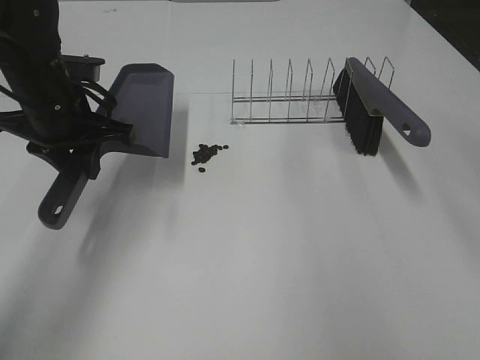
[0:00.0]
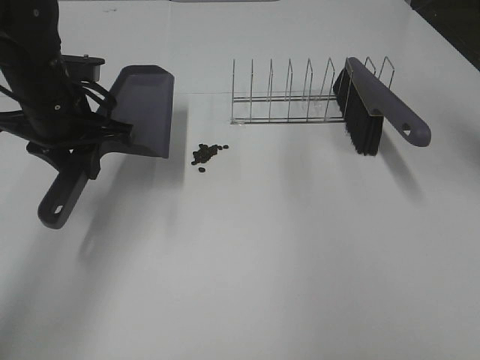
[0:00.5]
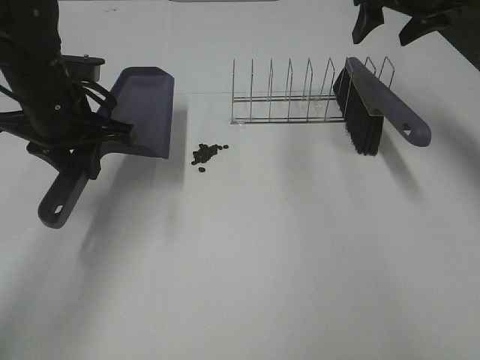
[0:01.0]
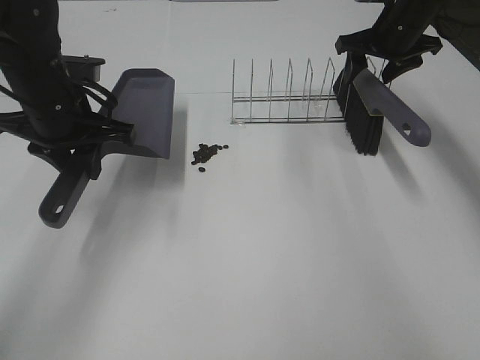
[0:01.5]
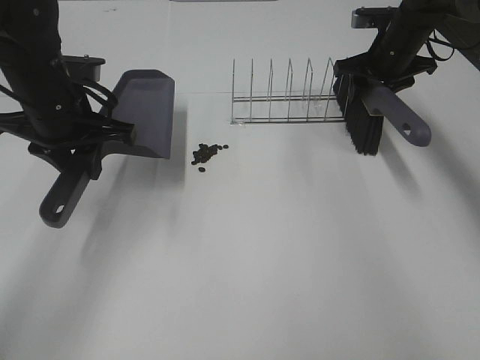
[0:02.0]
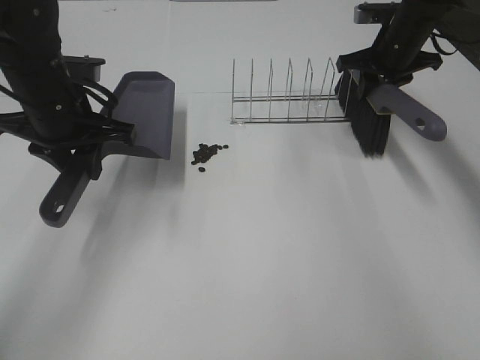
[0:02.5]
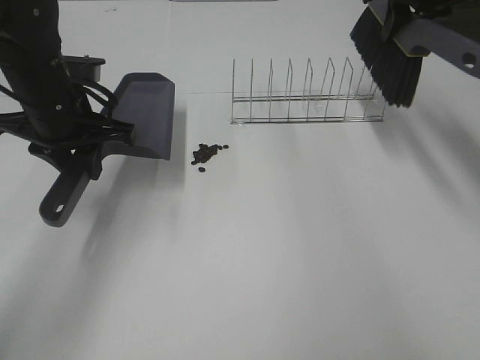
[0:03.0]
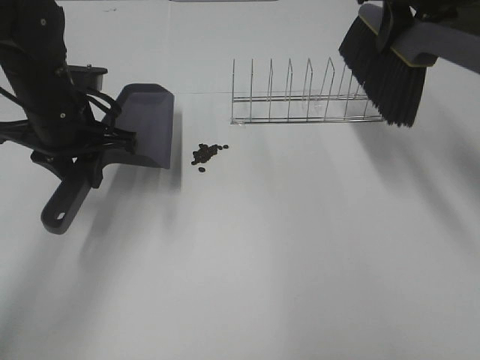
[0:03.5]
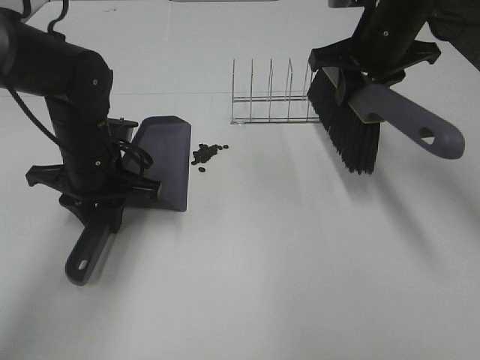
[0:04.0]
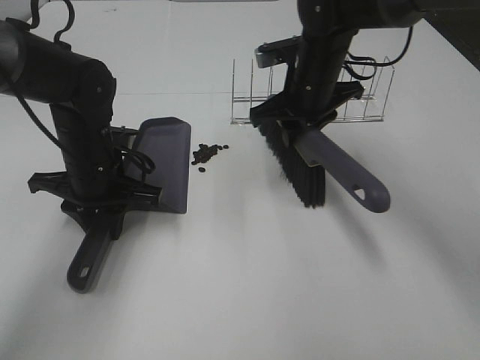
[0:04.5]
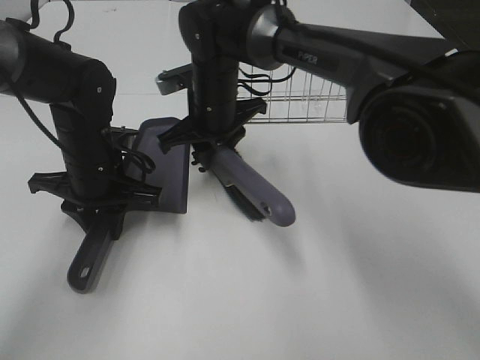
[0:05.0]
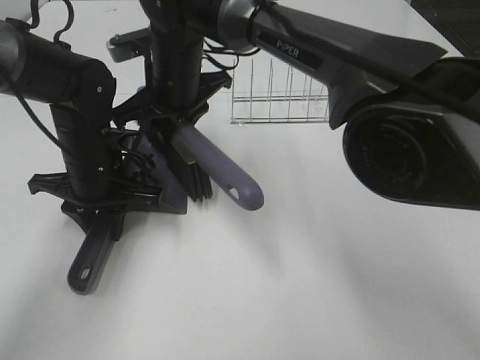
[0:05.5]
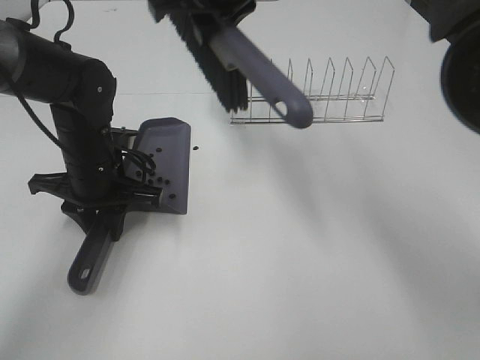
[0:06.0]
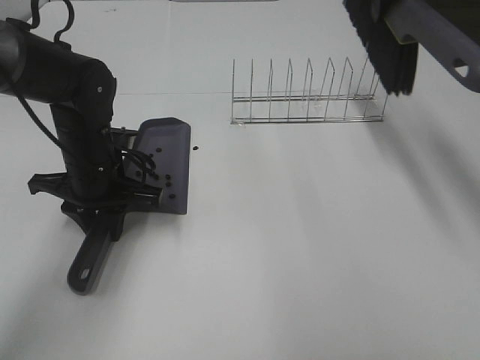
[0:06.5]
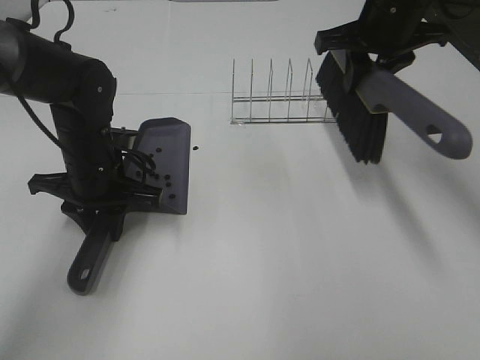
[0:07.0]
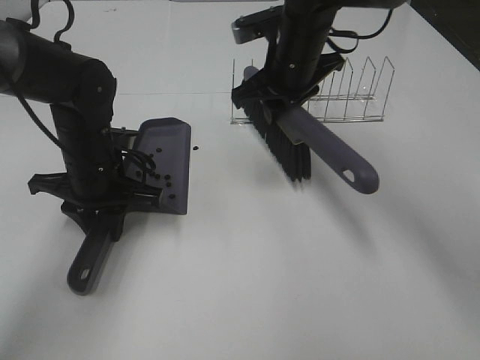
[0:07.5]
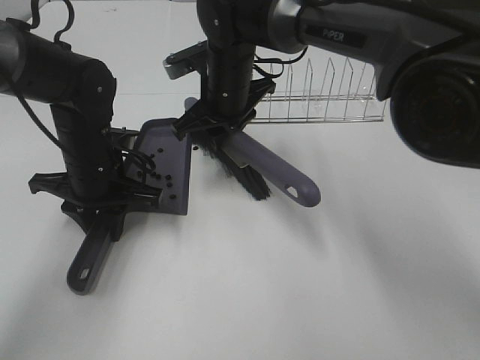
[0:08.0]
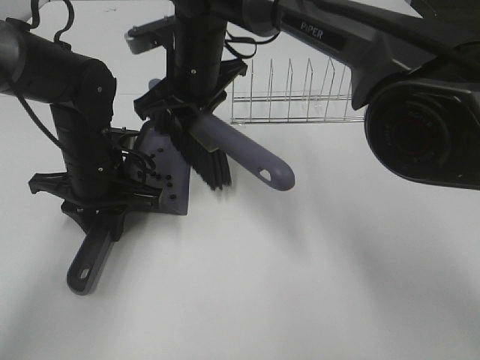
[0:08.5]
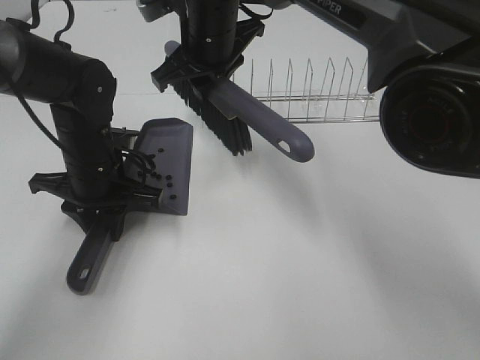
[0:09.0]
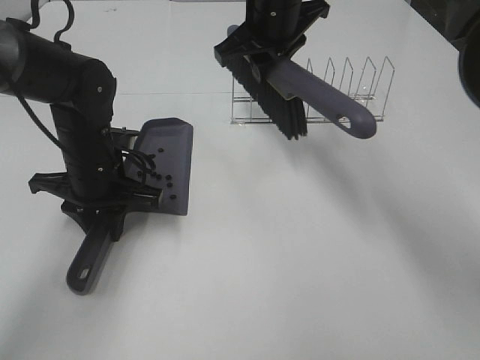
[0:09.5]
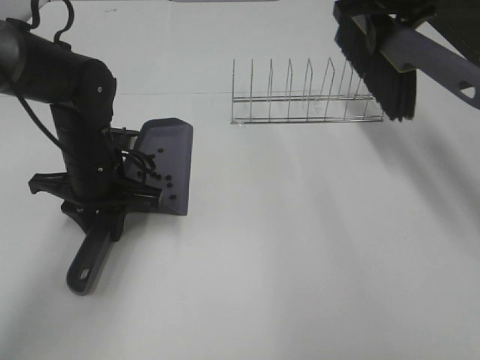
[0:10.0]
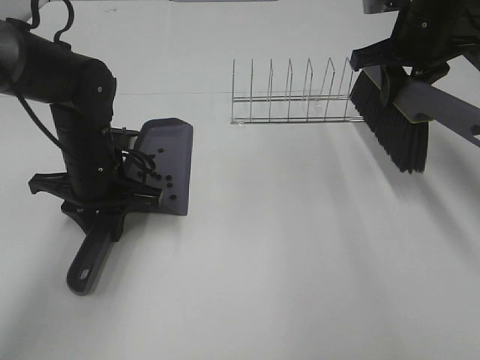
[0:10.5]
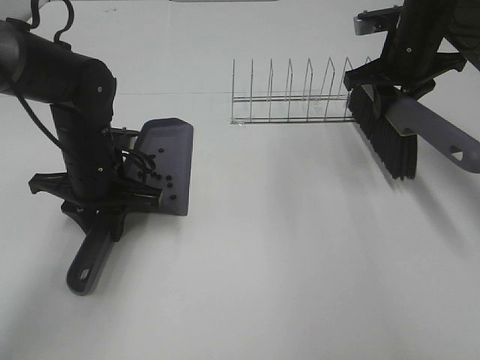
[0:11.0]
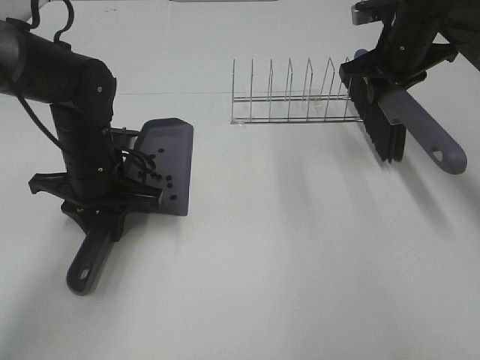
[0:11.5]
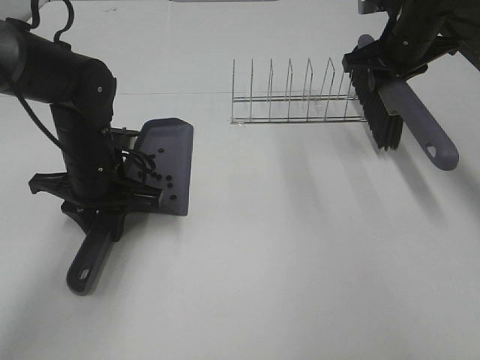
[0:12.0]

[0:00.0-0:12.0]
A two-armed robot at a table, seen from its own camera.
Task of the whole recording: Sweep Coffee Bean.
Step, 0:00.0 to 0:02.0: Right hand:grab the broom.
Step, 0:02.5 to 0:08.5: Right hand:sweep the coffee beans into the dustpan.
0:00.0 to 0:02.0: The right gripper shifts some 35 cm forward and downward, and closes.
0:02.0 to 0:04.0: The left gripper is displaced downward by some 5 cm, while the right gripper travels backward, to the left and upward by approximately 15 cm.
0:04.0 to 0:06.0: The right gripper travels to the left and upward by roughly 20 cm.
0:06.0 to 0:08.0: The right gripper is displaced downward by roughly 15 cm, and moves some 20 cm to the right and comes back.
0:08.0 to 0:10.0: The right gripper is displaced to the right and upward by approximately 25 cm.
0:10.0 to 0:12.0: The right gripper goes roughly 10 cm downward.

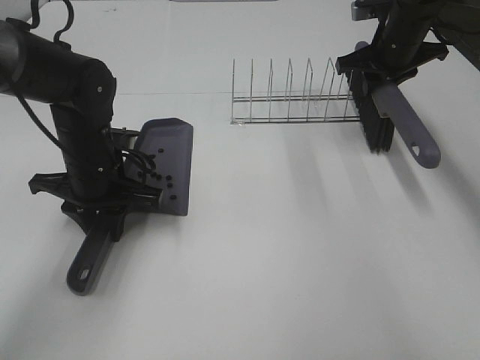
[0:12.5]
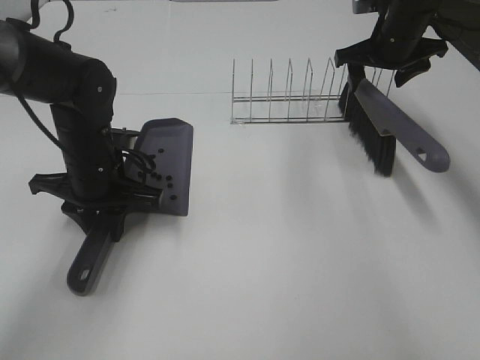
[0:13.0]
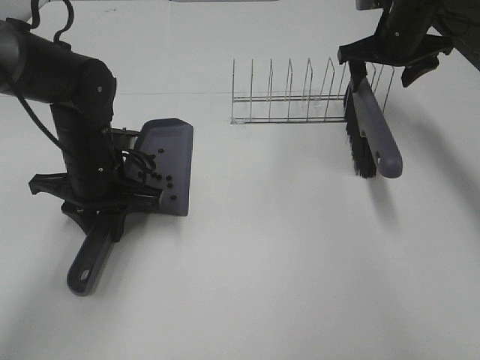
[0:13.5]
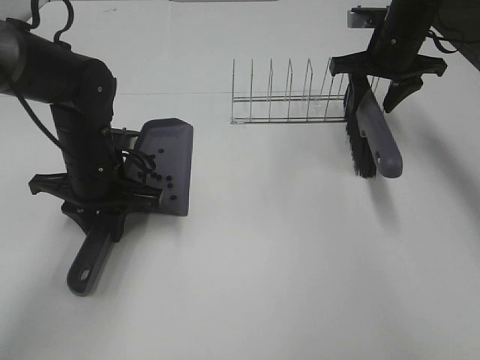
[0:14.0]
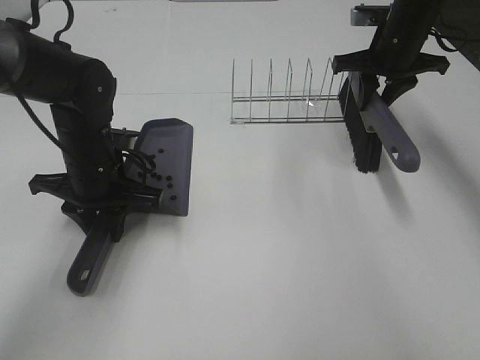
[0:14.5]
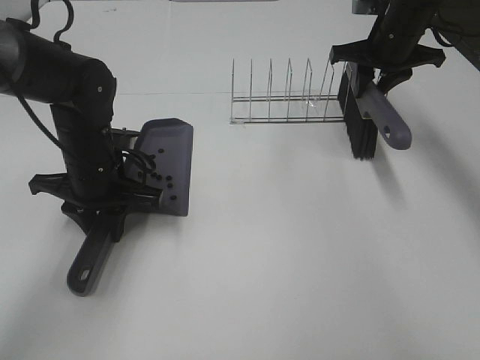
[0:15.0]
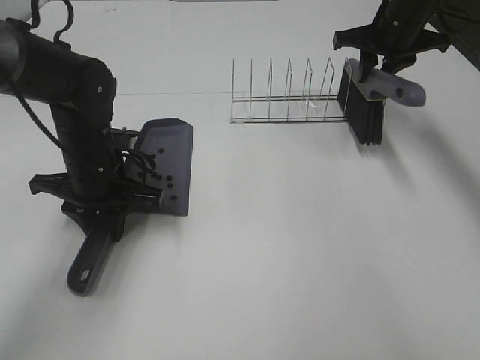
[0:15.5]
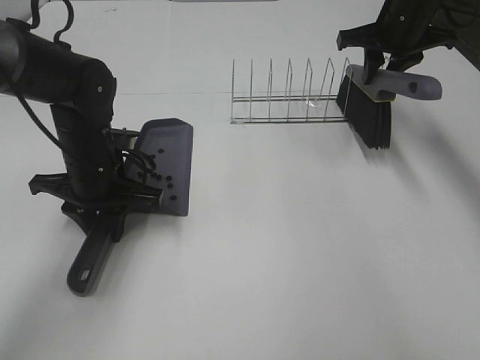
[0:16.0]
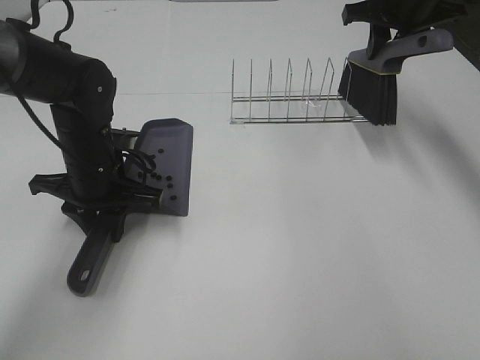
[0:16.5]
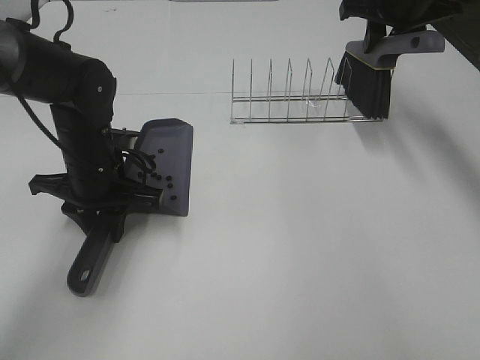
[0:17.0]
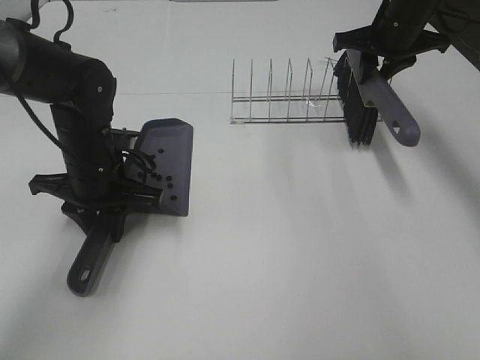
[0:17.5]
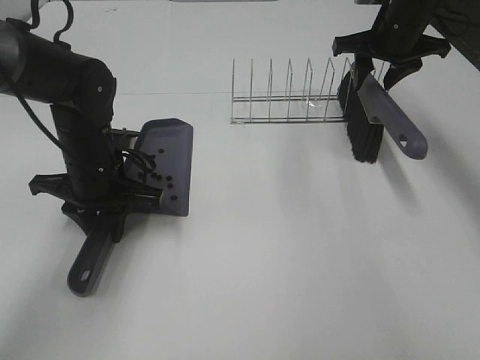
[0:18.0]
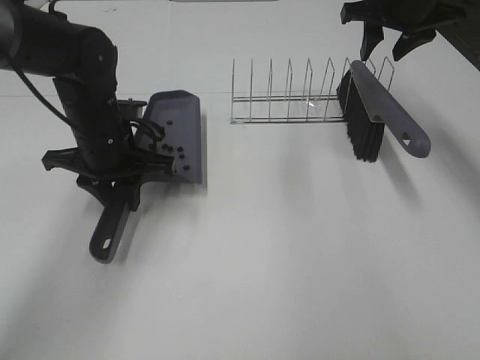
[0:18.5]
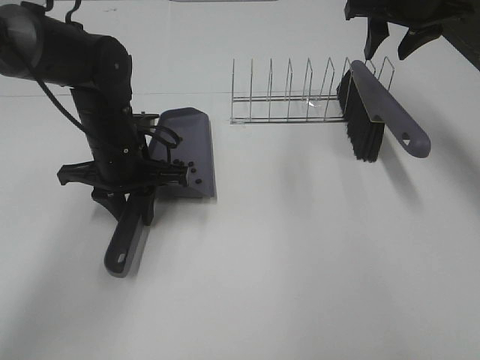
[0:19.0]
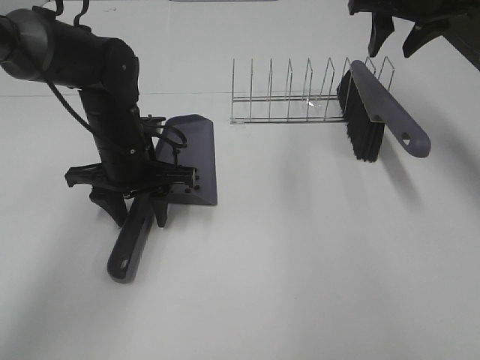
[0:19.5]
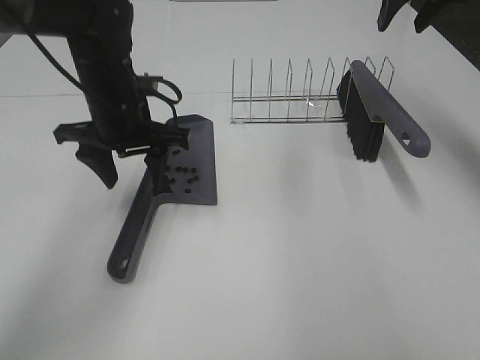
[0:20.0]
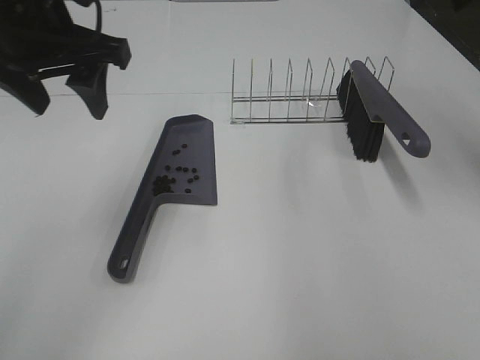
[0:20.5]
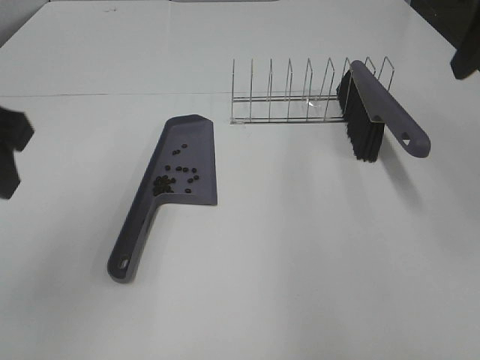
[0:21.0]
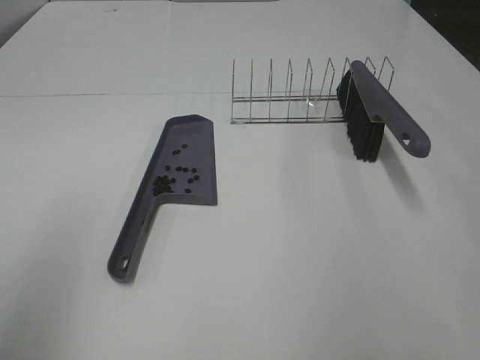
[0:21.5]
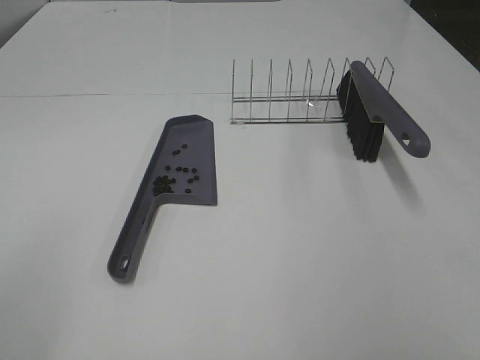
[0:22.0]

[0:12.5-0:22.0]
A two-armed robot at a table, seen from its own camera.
Task of the whole recording: Sweep Coffee Bean.
Step, 0:12.5 to 0:18.0: Right hand:place the broom on the rack.
Step, 0:18.5 to 0:19.5: Left hand:place the dustpan on the table.
0:12.5 to 0:14.5: The right gripper opens, then closes again.
0:14.5 to 0:16.5: The right gripper moves upward, some 5 cm.
0:16.5 to 0:18.0: The grippers stay close to where they were, moving slightly.
0:18.0 to 0:20.0: Both grippers move upward, approximately 10 cm. The left gripper opens up.
0:20.0 to 0:22.0: The left gripper is displaced backward and to the left by about 40 cm. The right gripper goes about 40 cm backward.

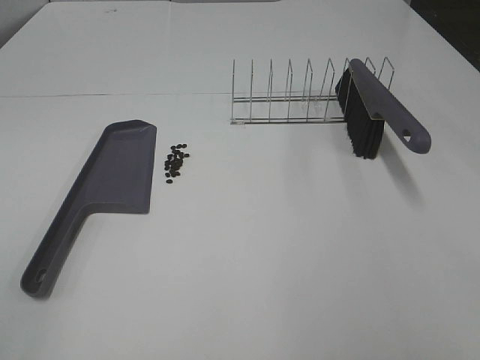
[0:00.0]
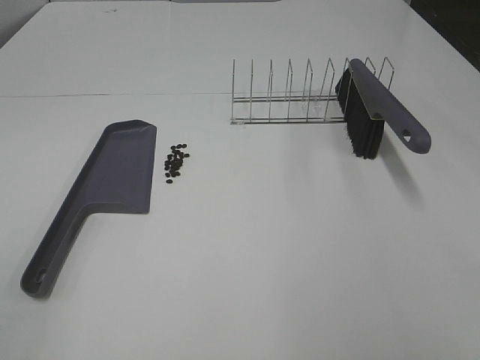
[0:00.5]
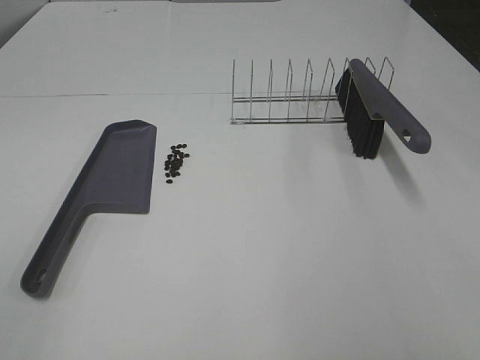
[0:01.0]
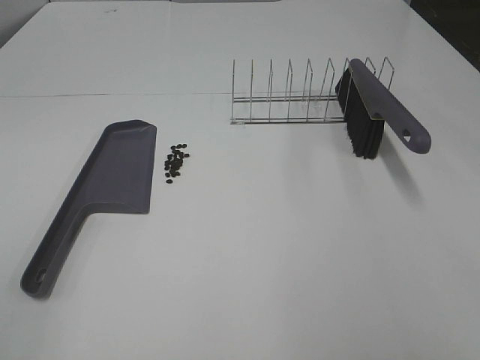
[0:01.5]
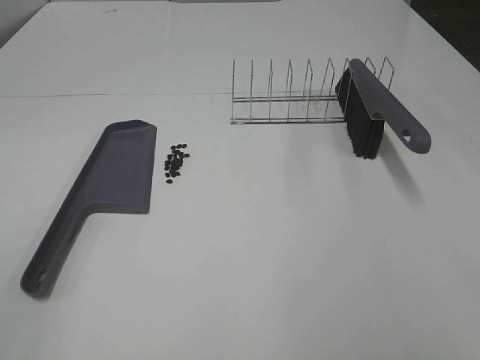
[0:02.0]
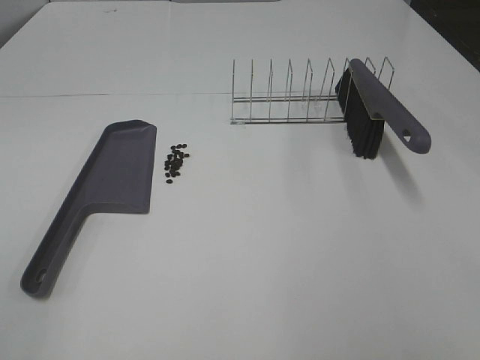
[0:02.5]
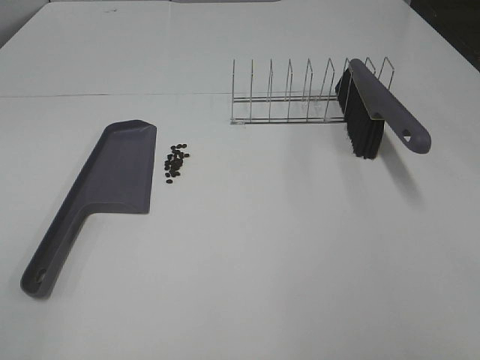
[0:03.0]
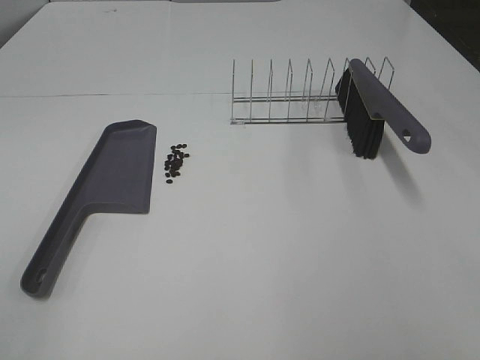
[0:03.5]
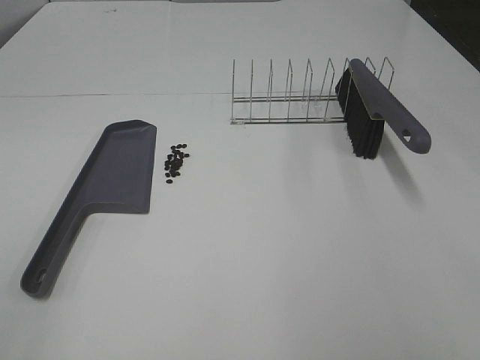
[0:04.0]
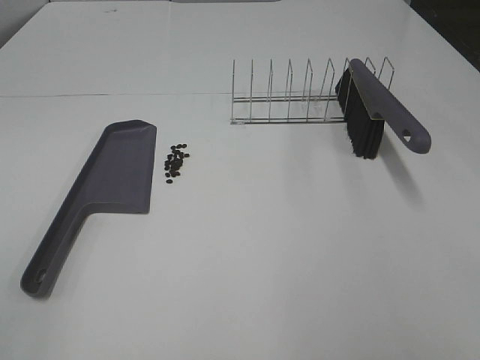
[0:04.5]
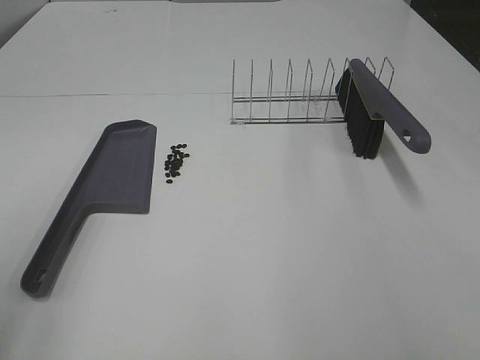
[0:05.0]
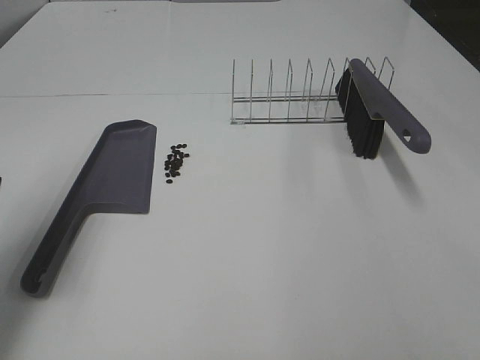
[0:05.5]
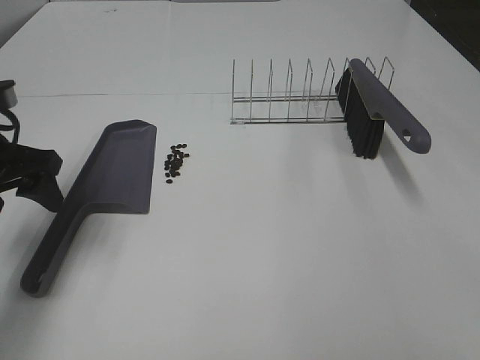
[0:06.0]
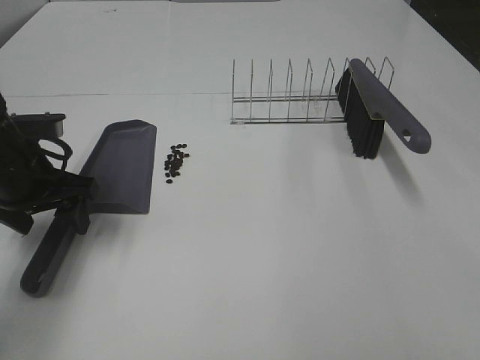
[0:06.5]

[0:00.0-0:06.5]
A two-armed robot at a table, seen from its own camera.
Task of the whole recording: Sweep Coffee Bean.
0:00.0 to 0:04.5: Both grippers stay put.
0:04.5 to 0:06.5: The left gripper goes approximately 35 cm forward and downward.
